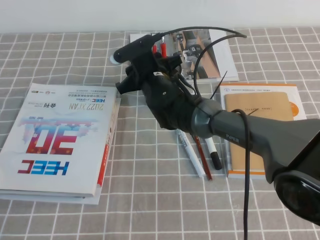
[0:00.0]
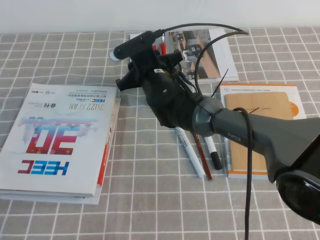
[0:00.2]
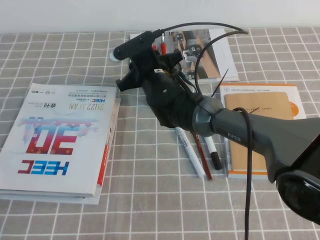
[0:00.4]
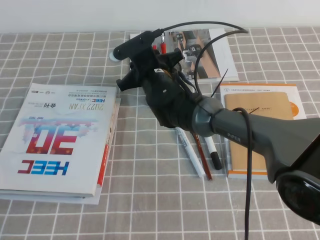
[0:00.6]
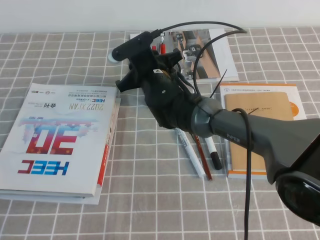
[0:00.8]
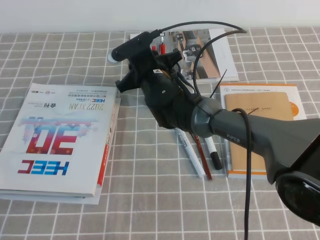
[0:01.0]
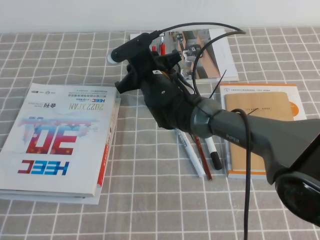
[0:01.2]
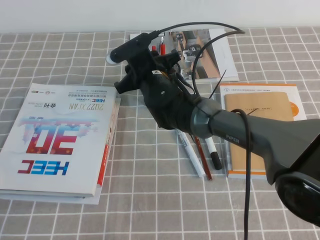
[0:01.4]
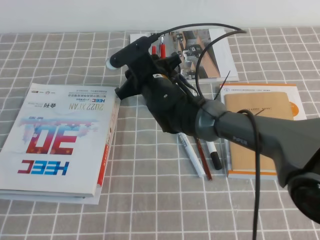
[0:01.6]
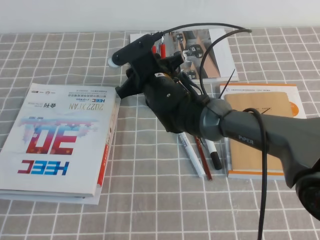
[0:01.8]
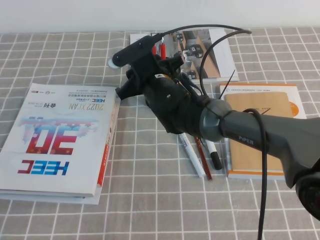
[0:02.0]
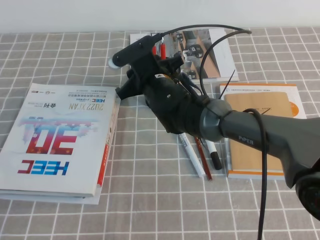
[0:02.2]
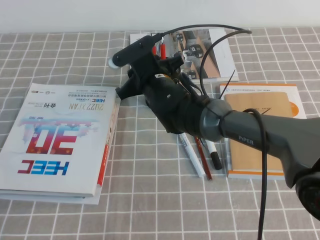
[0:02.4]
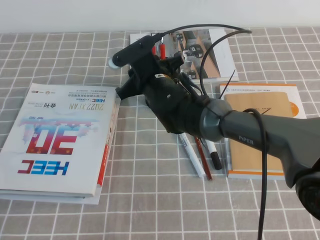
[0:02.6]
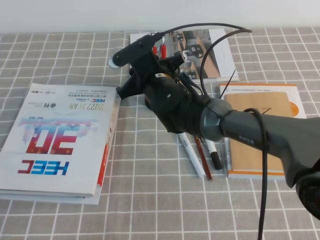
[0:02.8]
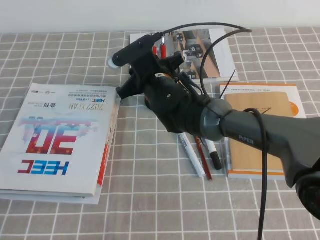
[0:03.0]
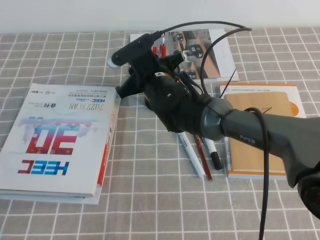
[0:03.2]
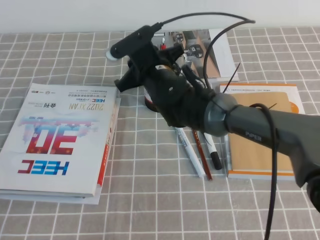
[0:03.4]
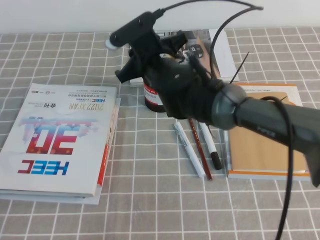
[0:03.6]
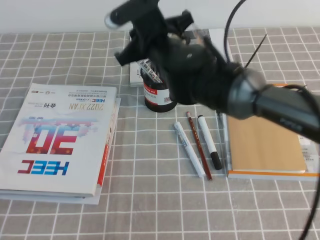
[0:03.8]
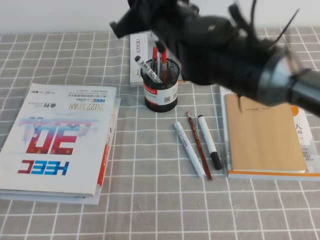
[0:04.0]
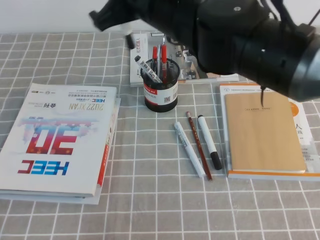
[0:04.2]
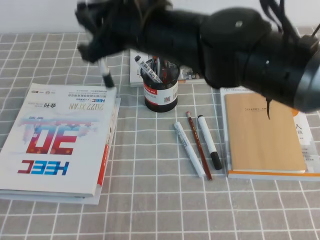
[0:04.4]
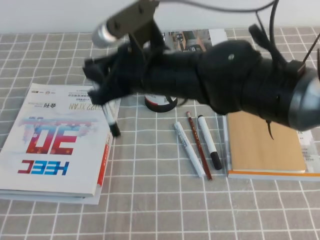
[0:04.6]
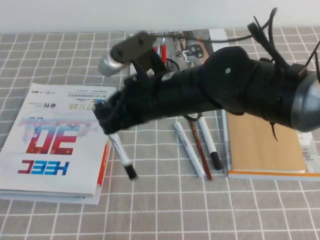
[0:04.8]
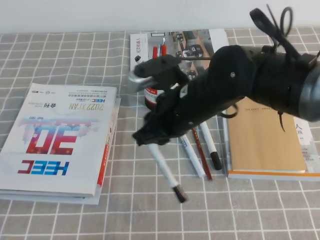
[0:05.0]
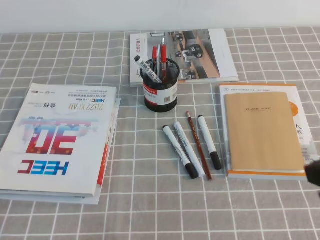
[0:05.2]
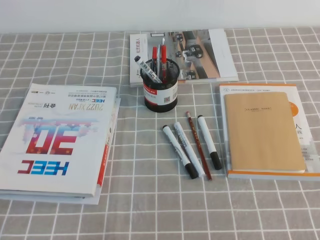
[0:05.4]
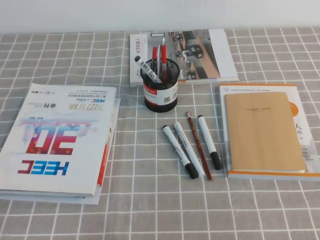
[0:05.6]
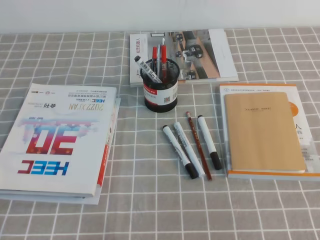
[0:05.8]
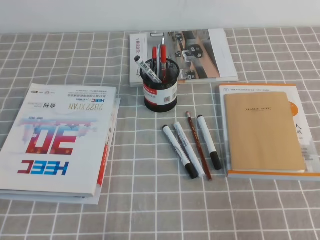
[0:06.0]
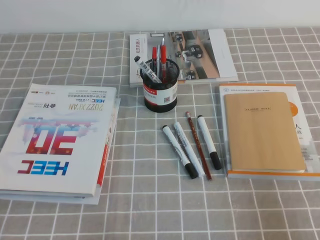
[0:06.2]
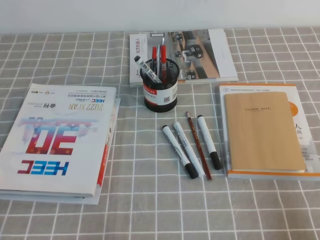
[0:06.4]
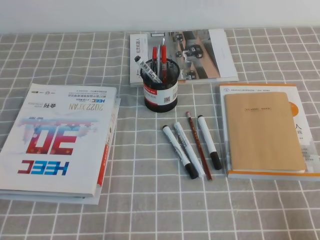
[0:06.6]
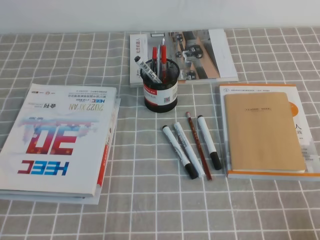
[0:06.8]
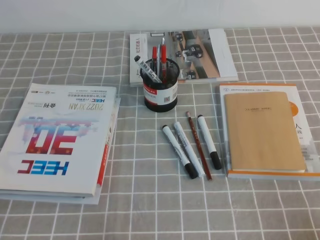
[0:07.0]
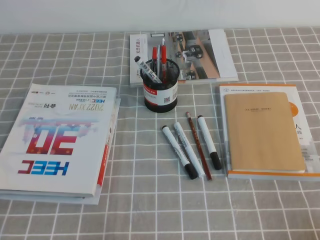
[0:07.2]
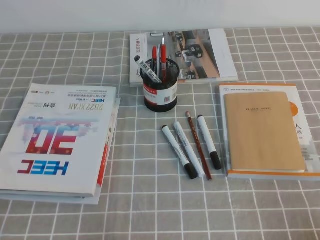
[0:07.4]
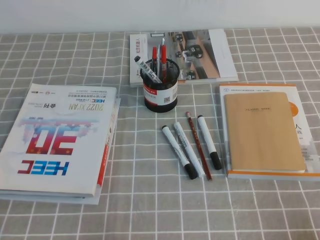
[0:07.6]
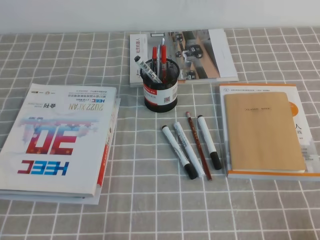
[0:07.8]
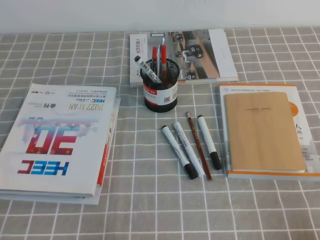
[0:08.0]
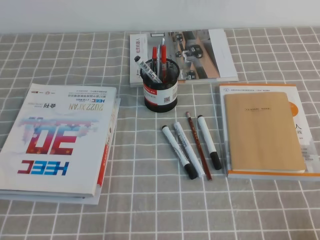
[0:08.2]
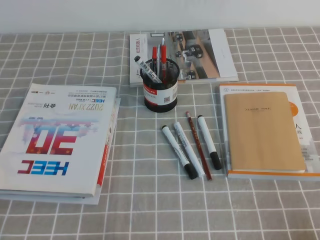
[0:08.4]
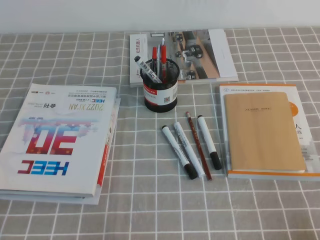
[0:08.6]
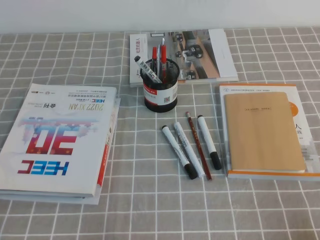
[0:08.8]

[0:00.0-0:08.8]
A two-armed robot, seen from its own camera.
Step, 0:00.0 to 0:08.8: Pick up the pen from the pen holder.
0:00.0 to 0:01.4: Both grippers stay put.
0:01.4 to 0:03.0: The grippers stay close to where they were, moving slightly.
0:03.0 to 0:04.4: The right gripper moves upward and backward, about 20 cm.
0:04.4 to 0:05.8: The right gripper heads to the right and backward, covering approximately 35 cm.
0:05.8 to 0:07.4: The right gripper goes roughly 15 cm downward and to the right.
0:07.4 to 0:08.8: The two grippers keep their place.
